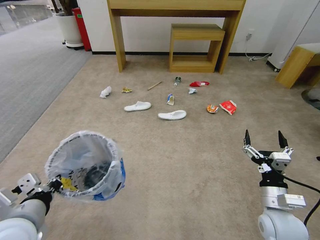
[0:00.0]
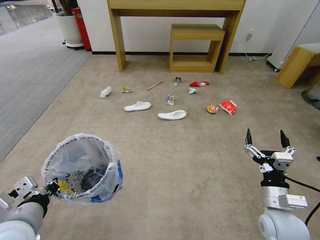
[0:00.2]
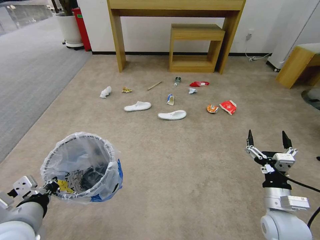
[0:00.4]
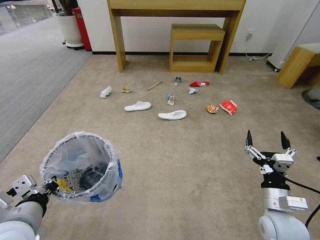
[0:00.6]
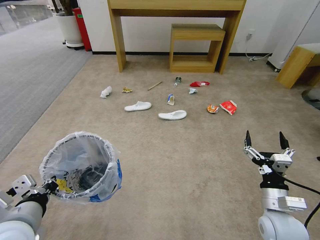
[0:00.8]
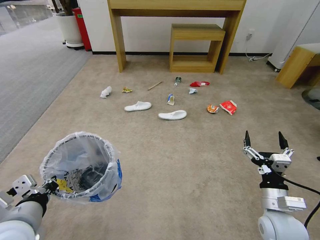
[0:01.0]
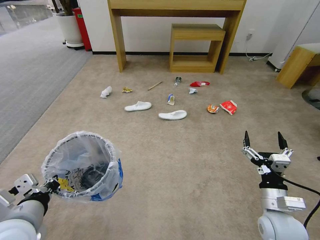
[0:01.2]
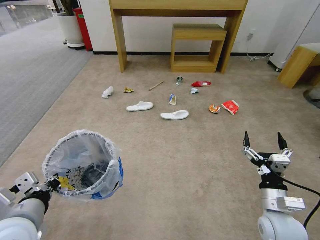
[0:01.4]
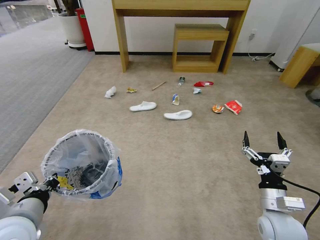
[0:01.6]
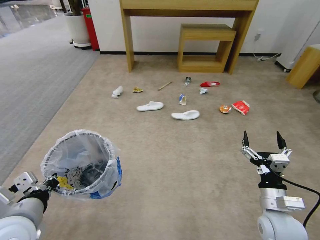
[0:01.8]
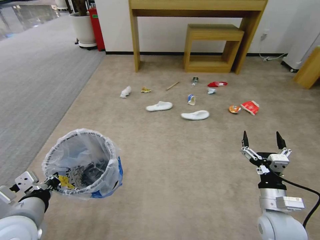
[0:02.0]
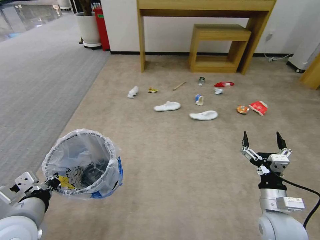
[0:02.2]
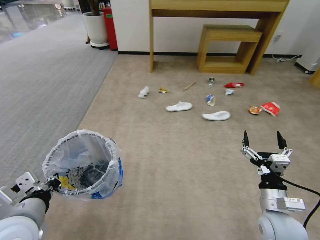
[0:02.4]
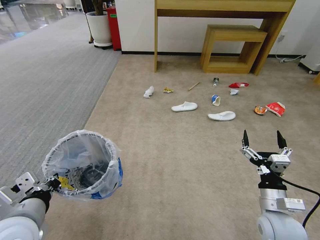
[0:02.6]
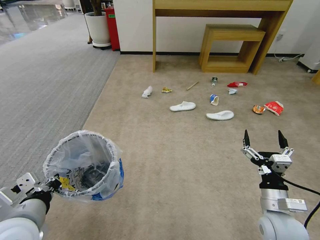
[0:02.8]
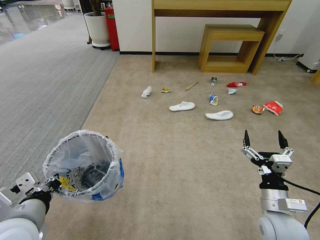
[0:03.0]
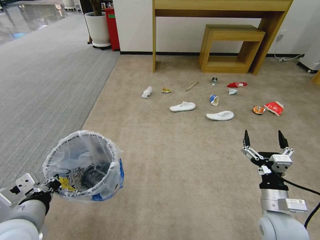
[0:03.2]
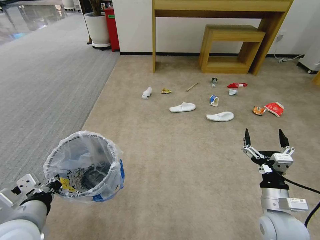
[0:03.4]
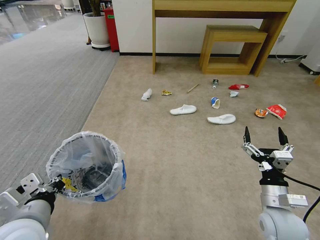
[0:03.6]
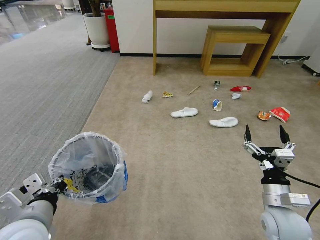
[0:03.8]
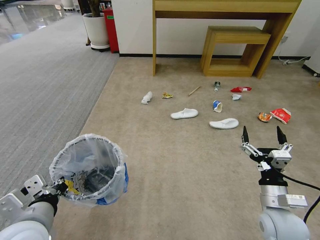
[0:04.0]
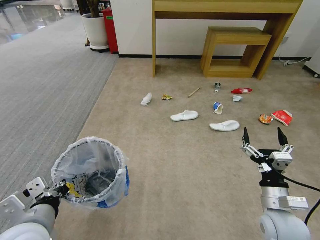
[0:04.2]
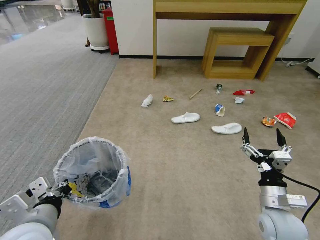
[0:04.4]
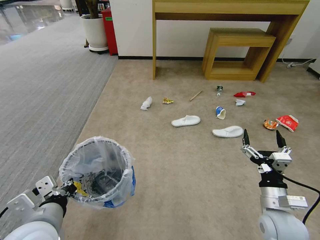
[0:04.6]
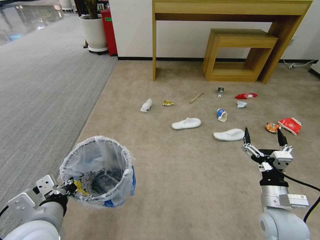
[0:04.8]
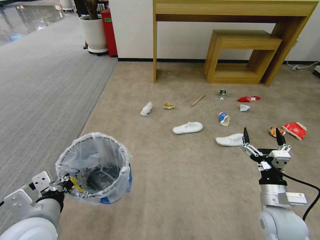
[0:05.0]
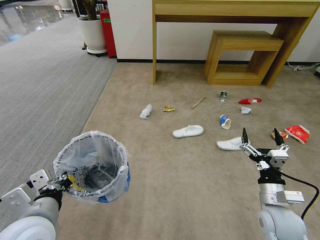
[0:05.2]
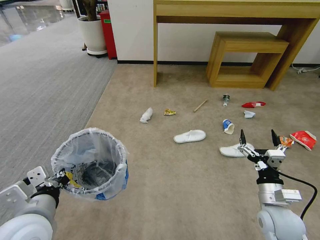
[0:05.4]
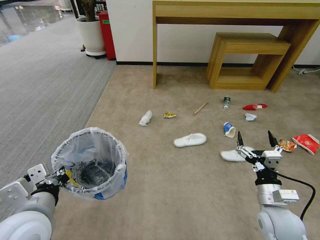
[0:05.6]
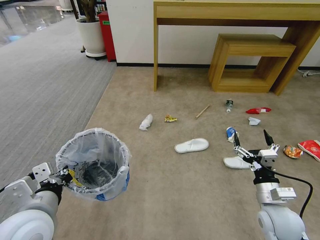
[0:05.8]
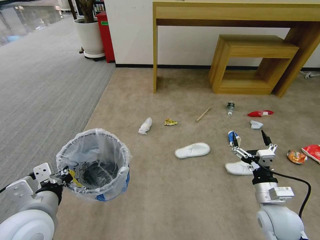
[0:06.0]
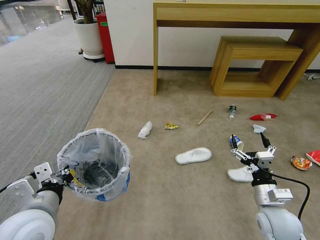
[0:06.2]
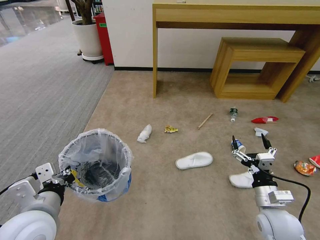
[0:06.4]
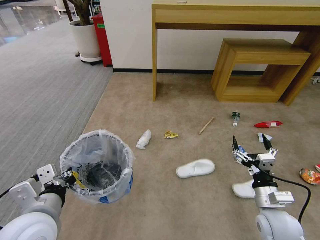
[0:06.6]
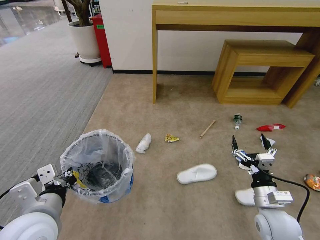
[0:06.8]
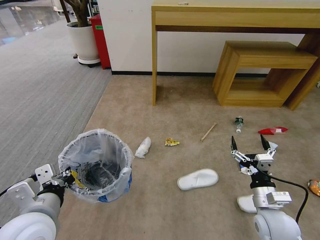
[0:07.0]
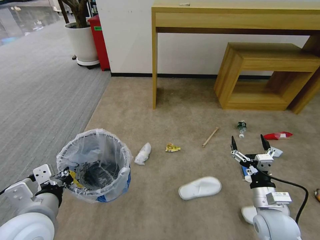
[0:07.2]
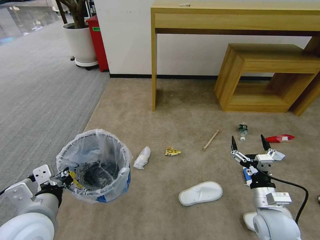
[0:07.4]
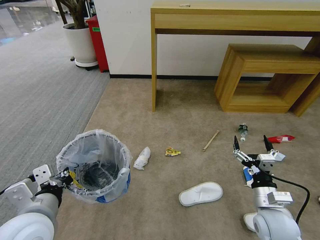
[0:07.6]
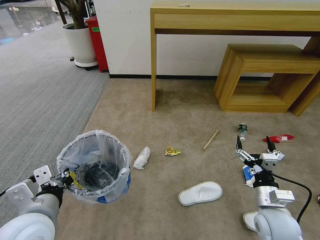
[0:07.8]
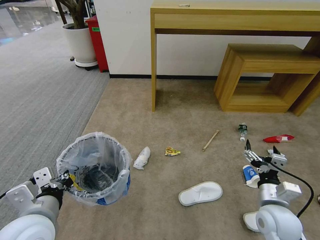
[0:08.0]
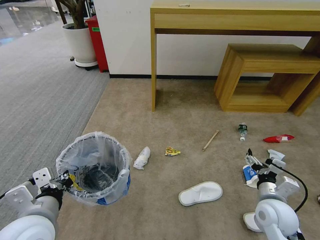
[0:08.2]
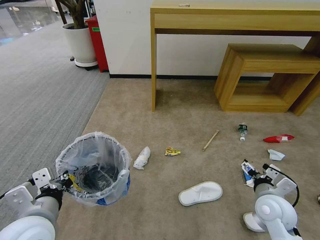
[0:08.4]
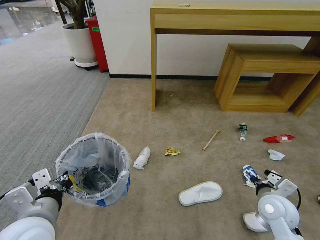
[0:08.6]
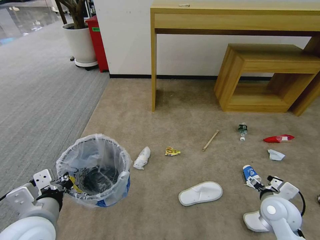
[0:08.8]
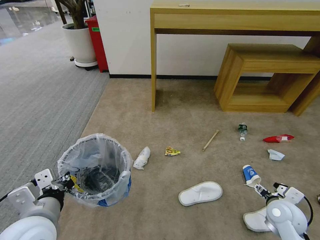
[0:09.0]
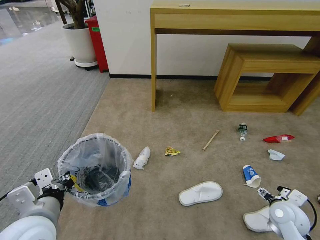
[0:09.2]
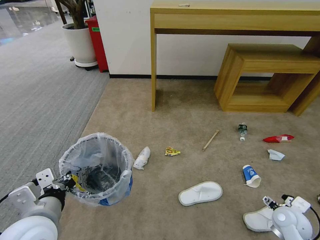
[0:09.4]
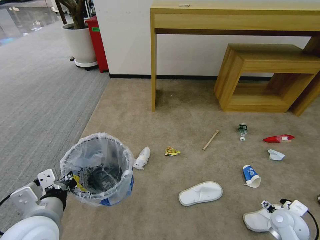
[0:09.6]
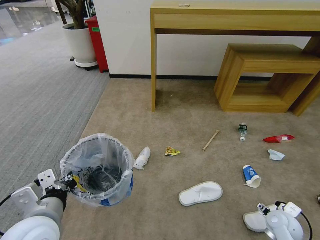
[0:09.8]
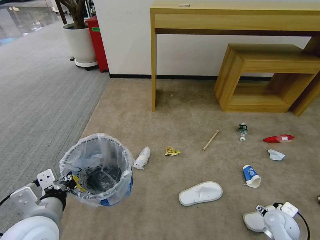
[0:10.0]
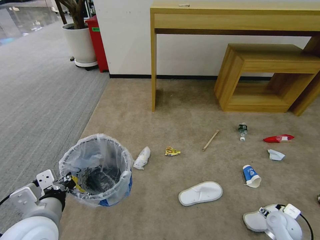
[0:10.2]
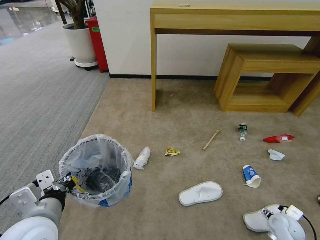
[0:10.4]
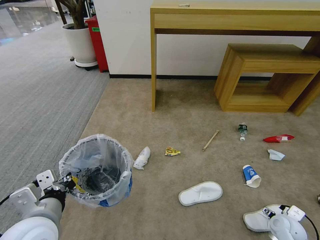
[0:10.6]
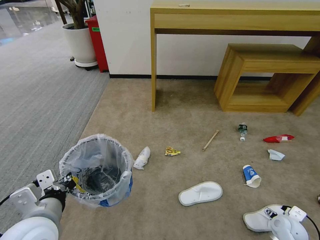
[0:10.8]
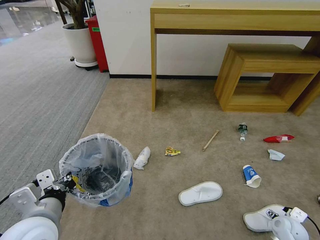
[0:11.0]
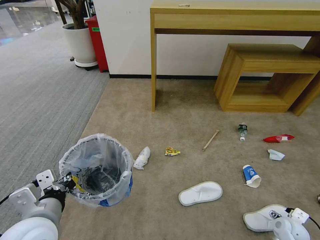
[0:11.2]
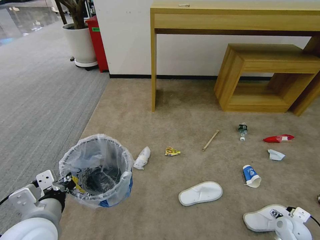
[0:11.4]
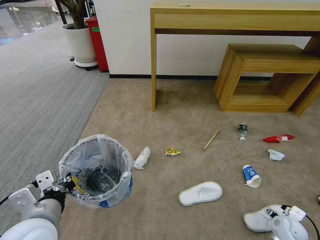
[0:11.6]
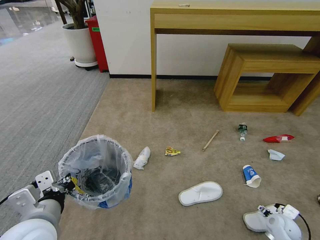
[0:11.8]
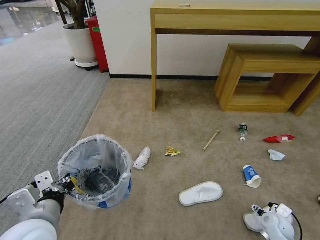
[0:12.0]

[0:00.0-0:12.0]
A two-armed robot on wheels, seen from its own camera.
Task of the whole recording: Pick up the trash bin and place the garbage on the floor into it.
0:00.0 to 0:01.6: Both grippers stay about where they are.
0:07.6 to 0:09.0: The right gripper goes some 5 cm to the right.
0:09.0 to 0:10.4: The right gripper shifts about 10 cm downward and to the right.
0:10.4 to 0:12.0: The grippers stay close to where they were, moving slightly.

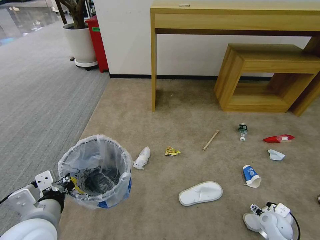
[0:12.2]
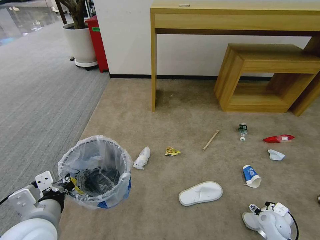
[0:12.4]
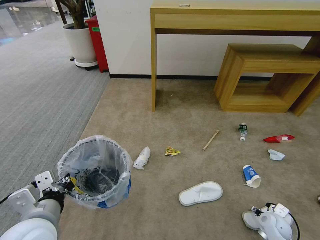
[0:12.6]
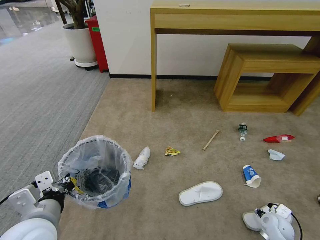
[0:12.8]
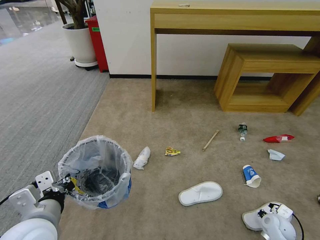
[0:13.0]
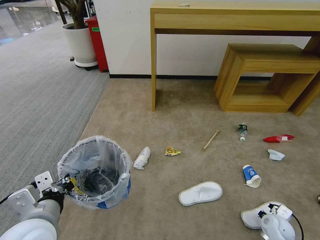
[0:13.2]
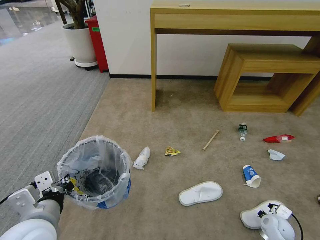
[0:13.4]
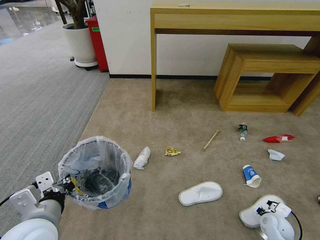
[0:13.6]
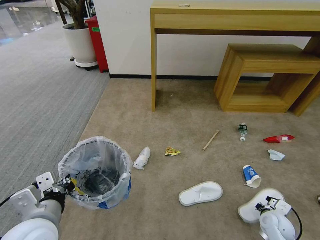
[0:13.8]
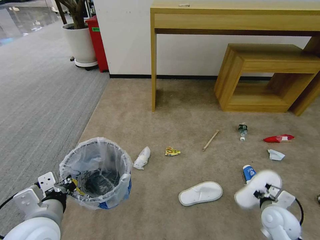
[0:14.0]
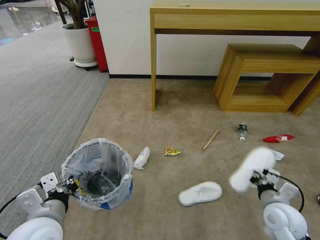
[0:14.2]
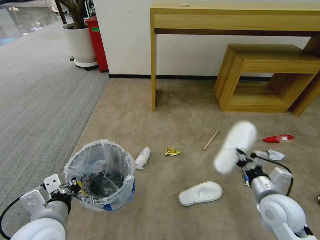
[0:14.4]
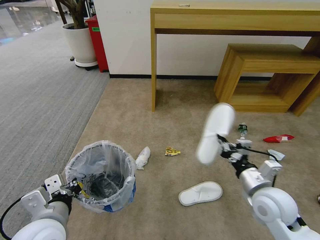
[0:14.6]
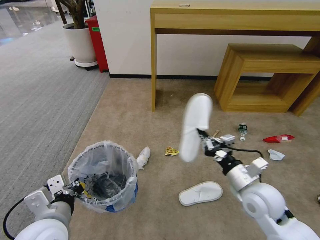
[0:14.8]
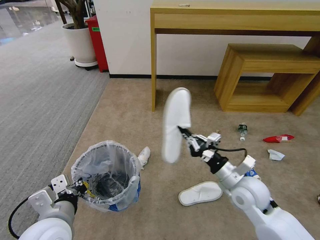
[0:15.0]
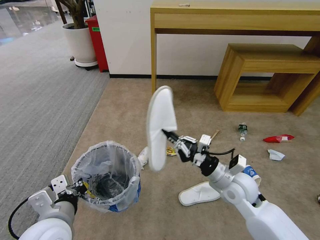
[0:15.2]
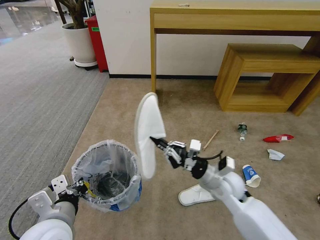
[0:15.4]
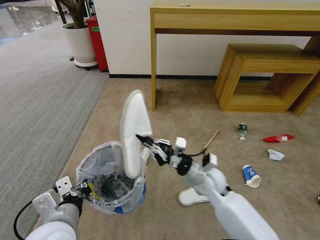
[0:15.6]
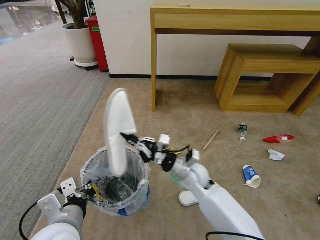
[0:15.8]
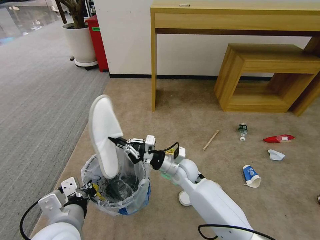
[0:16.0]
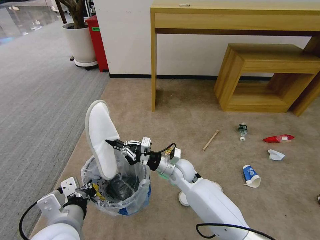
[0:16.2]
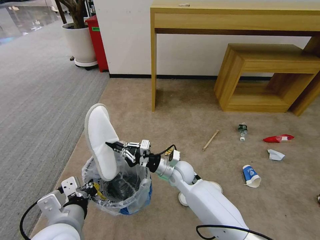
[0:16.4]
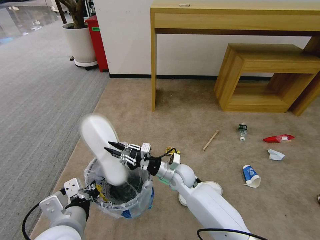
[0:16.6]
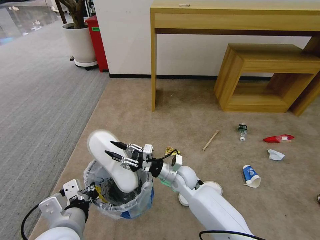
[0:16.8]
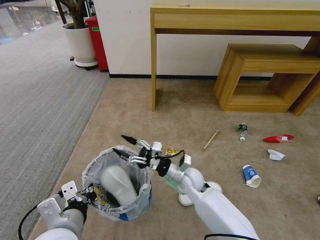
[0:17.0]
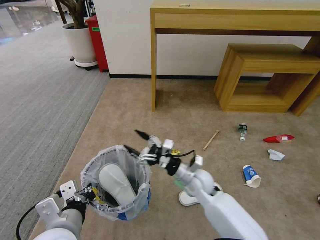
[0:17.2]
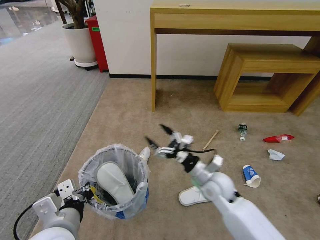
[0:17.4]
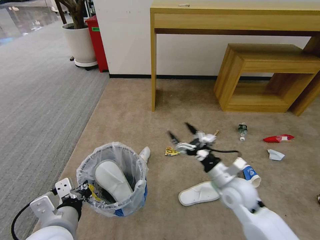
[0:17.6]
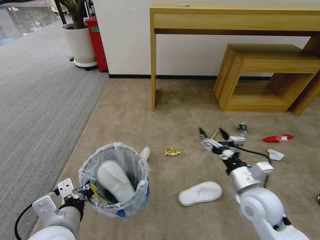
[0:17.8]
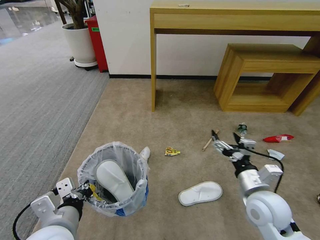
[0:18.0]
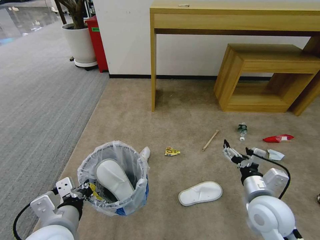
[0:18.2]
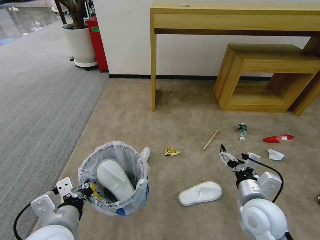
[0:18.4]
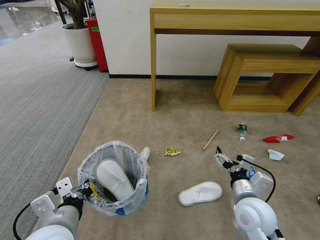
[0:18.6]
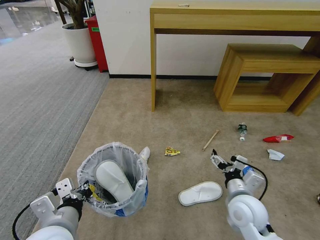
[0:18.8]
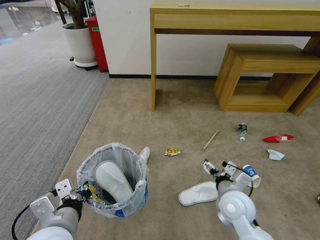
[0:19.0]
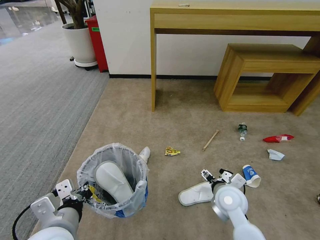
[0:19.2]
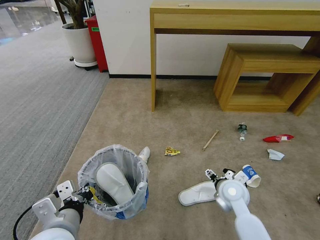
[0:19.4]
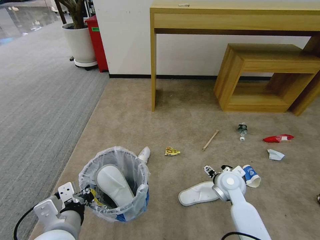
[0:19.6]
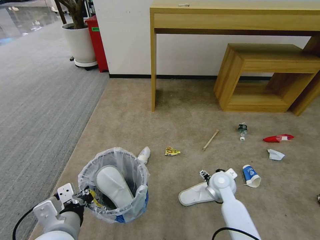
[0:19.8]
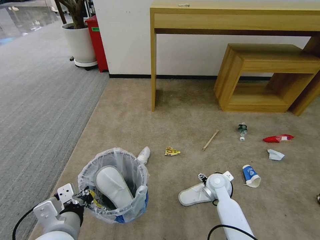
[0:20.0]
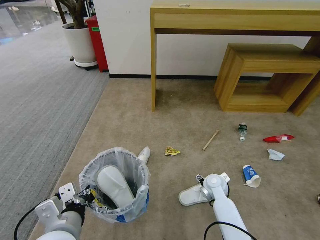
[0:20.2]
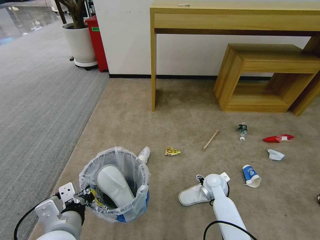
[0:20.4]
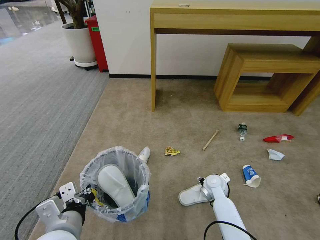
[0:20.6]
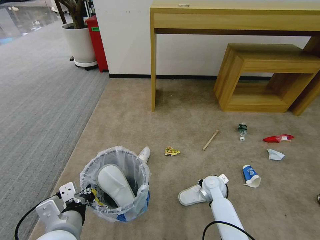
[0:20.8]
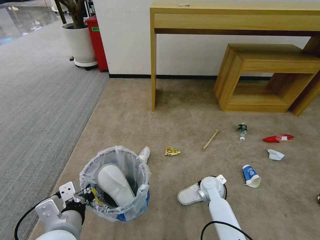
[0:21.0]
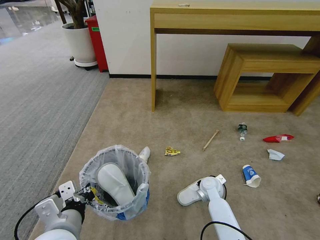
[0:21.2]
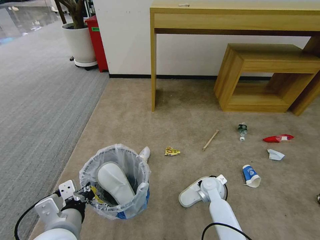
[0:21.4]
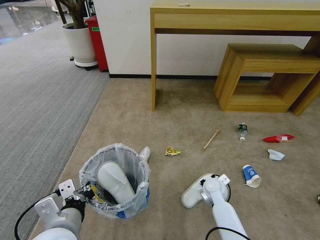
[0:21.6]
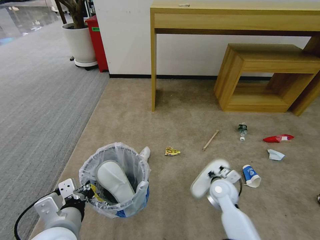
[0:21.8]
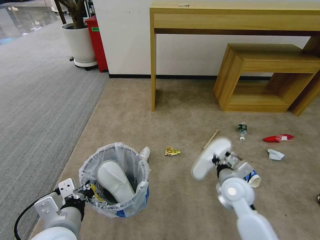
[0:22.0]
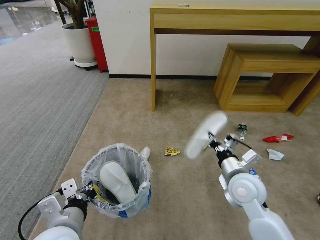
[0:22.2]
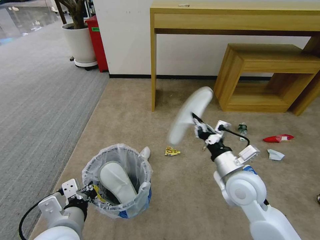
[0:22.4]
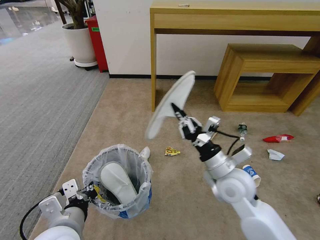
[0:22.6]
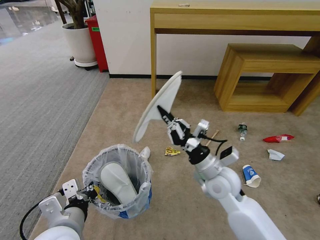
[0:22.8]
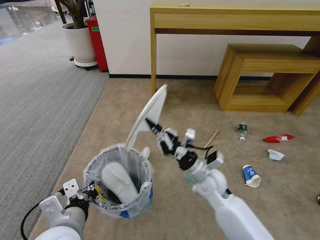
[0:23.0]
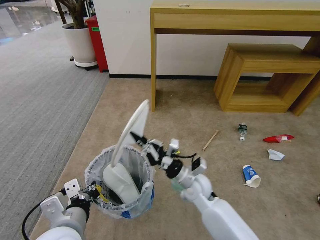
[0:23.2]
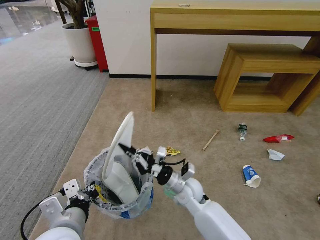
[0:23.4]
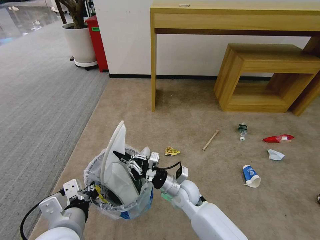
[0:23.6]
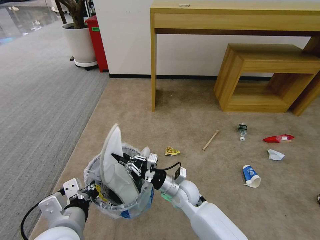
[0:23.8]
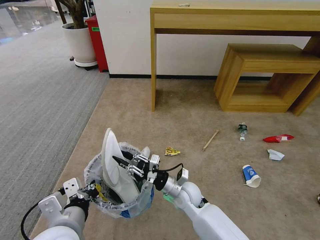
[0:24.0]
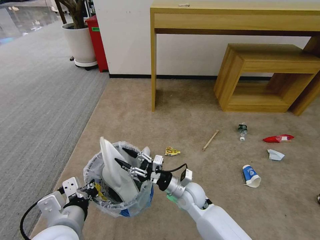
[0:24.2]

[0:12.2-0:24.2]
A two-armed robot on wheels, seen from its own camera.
Task of the whole recording: Pick up the trash bin and place the garbage on the floor into it.
0:12.2 to 0:13.8: The right gripper closes.
0:13.8 to 0:15.2: The right gripper goes about 25 cm upward and to the left.
0:15.2 to 0:16.6: The right gripper shifts about 20 cm to the left, forward and downward.
0:16.6 to 0:18.2: The right gripper is displaced to the right, backward and upward by approximately 25 cm, and opens up.
0:18.2 to 0:19.8: The right gripper moves forward and downward, roughly 20 cm.
0:19.8 to 0:21.2: The right gripper goes roughly 10 cm downward, and closes its fingers.
0:21.2 to 0:22.6: The right gripper moves upward, roughly 25 cm.
0:22.6 to 0:24.2: The right gripper travels downward and to the left by some 20 cm, and opens its fingers.
